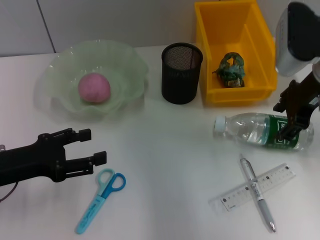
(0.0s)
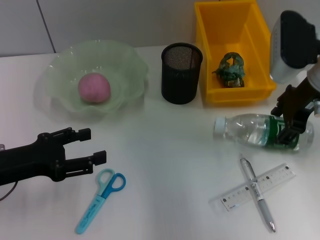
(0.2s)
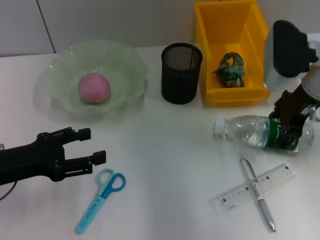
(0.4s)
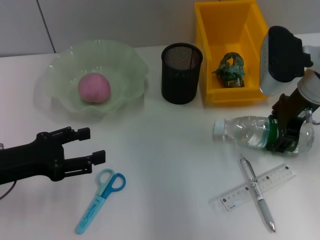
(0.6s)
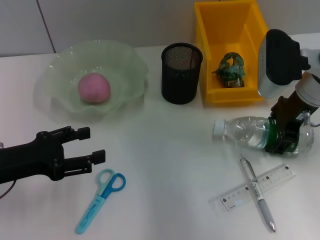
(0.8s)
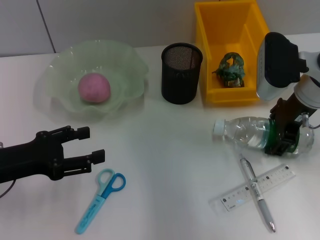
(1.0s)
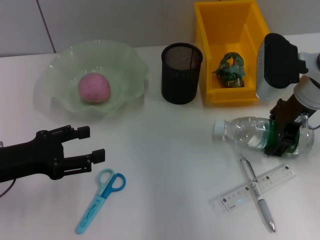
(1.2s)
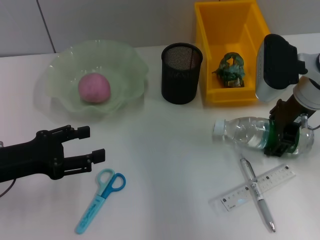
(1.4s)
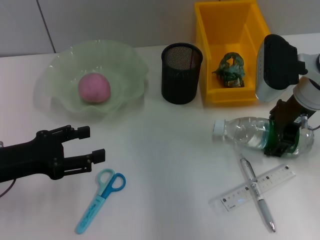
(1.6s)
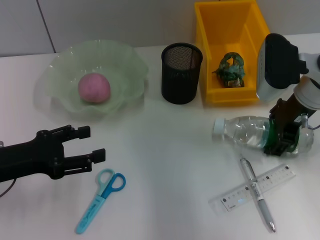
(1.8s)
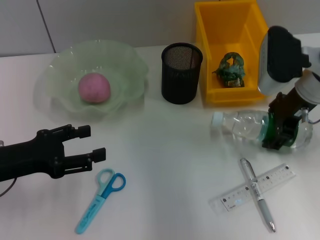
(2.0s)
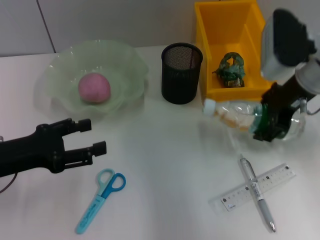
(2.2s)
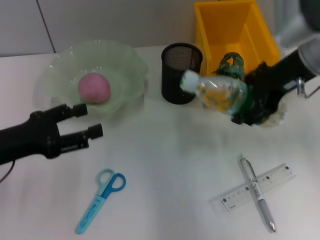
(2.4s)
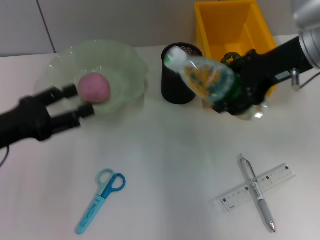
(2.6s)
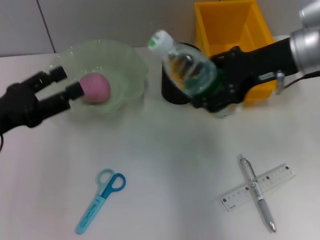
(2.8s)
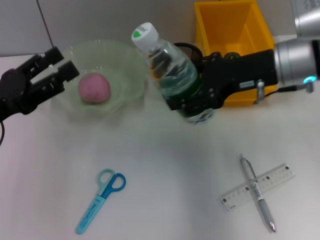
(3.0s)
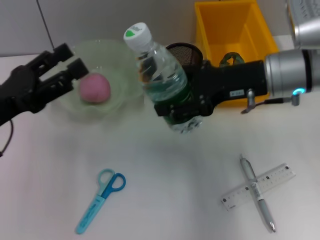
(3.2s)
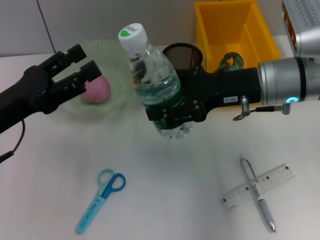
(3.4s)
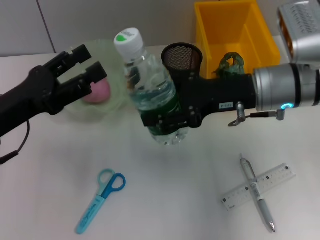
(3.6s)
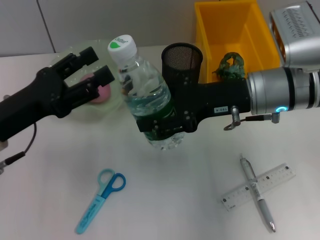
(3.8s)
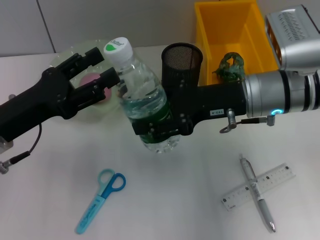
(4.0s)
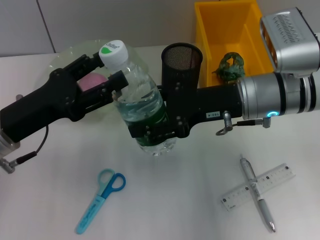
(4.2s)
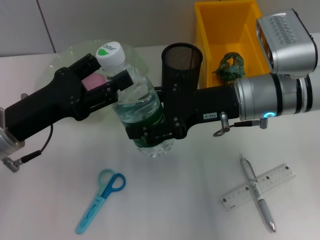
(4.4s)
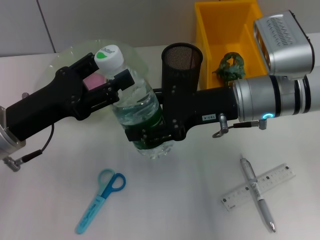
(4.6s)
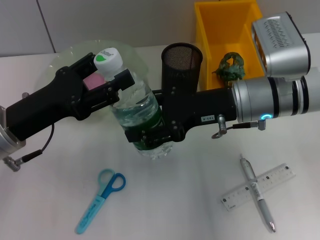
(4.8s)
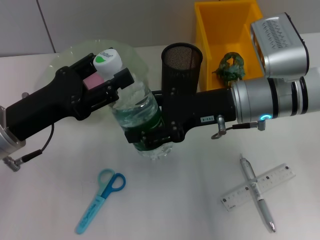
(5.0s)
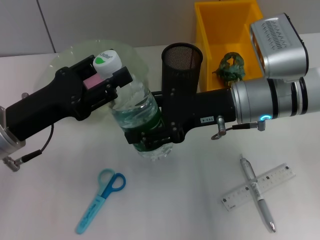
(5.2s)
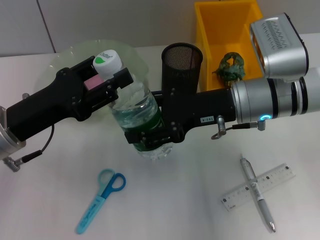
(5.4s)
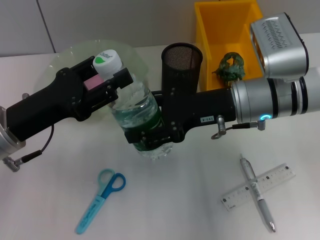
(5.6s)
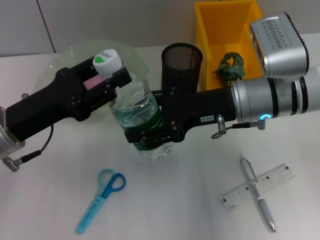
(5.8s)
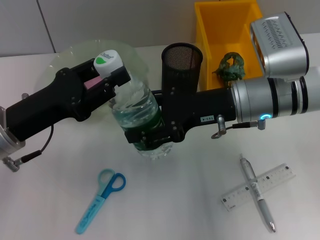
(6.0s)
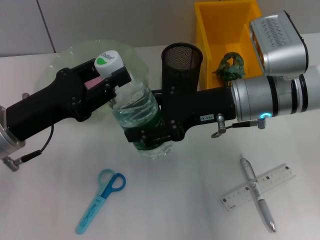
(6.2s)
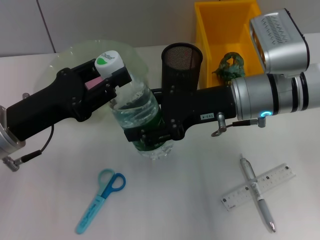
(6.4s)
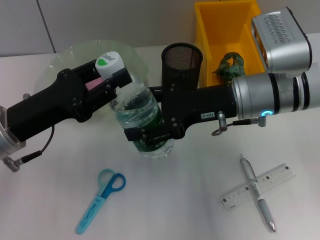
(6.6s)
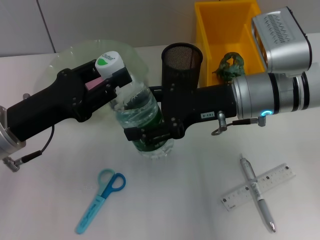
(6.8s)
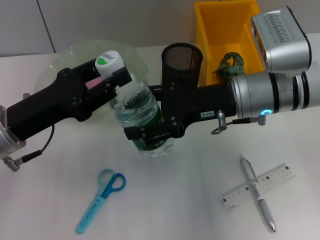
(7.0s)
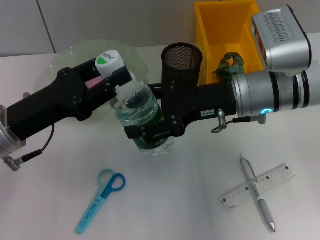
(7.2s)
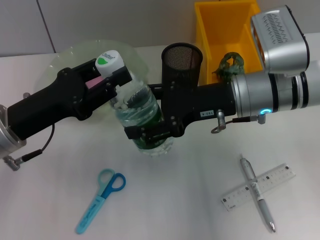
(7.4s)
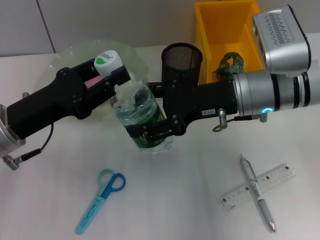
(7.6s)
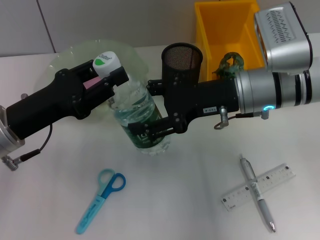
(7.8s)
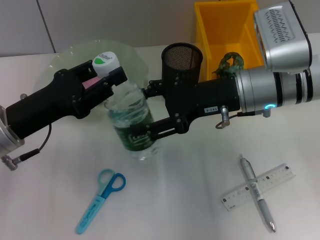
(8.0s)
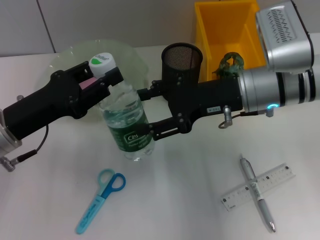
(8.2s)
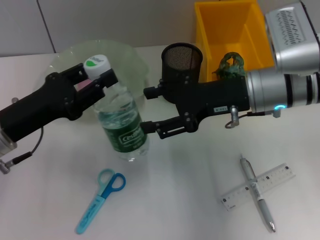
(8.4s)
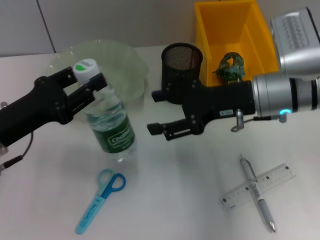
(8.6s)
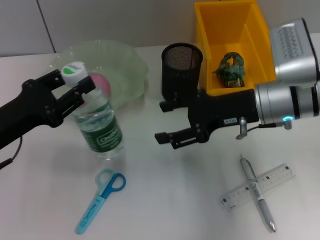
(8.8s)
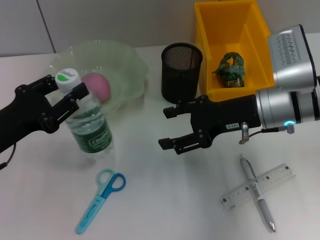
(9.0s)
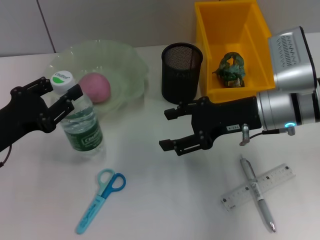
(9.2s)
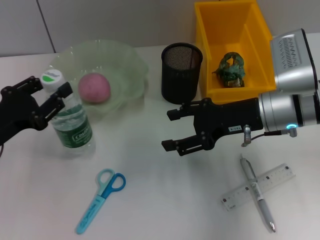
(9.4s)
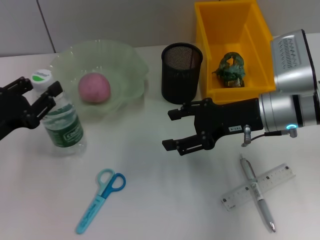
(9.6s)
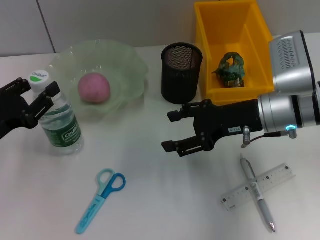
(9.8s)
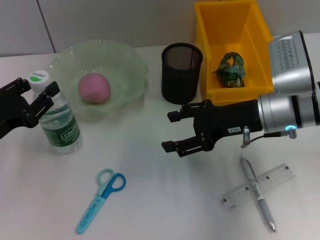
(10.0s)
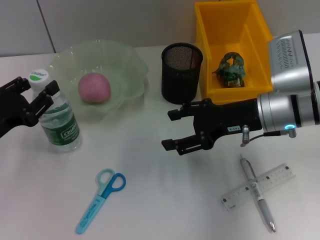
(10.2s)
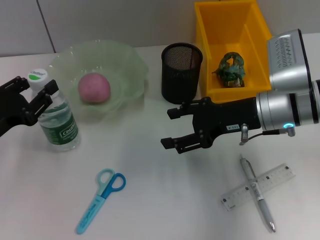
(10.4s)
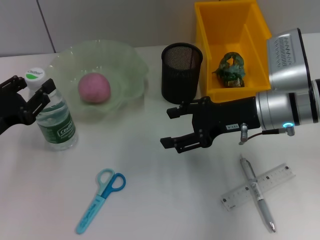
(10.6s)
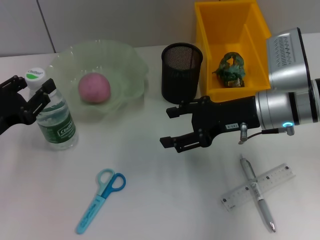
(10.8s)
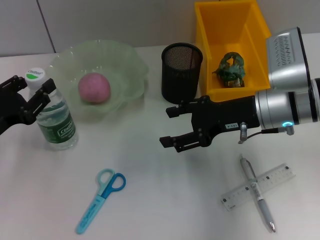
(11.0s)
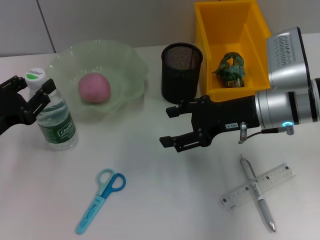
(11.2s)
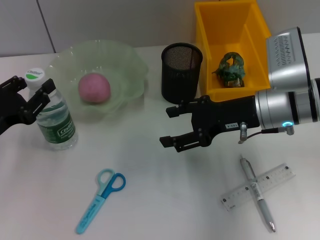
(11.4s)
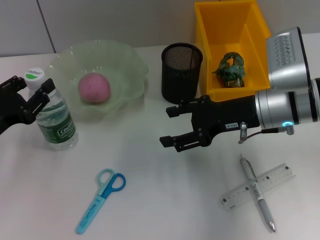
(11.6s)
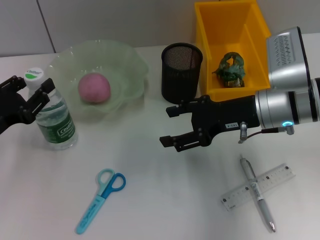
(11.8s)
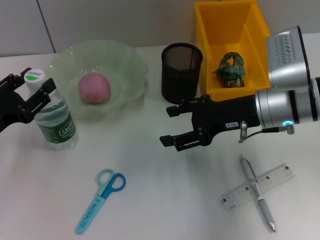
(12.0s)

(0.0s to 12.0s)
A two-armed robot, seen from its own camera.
Step, 0.8s - 7.8s: Pass the water bottle from the right hand to the left hand.
0.0s - 1.6s: The grippers stay close to where they were, moving slightly.
3.0s - 4.4s: The right gripper shifts by about 5 cm. Meanwhile the left gripper is displaced to the right by approximately 5 cm.
4.4s - 6.0s: The left gripper closes.
6.0s - 7.6s: Neither gripper changes place.
7.6s - 9.0s: The left gripper changes place by about 5 cm.
9.0s - 10.4s: The grippers stay close to where they were, moving slightly.
10.4s - 12.0s: Both grippers stay put.

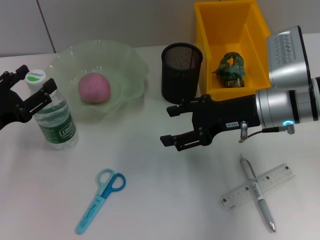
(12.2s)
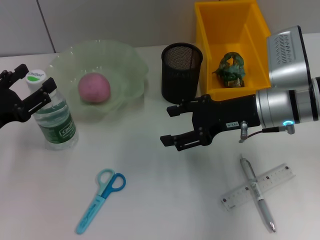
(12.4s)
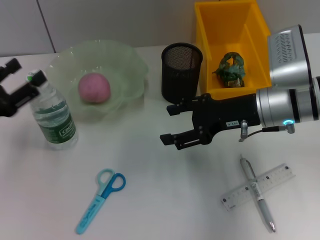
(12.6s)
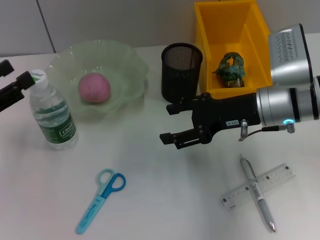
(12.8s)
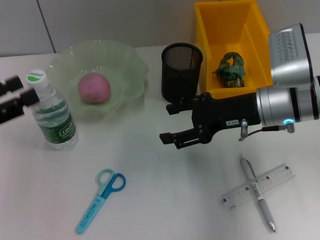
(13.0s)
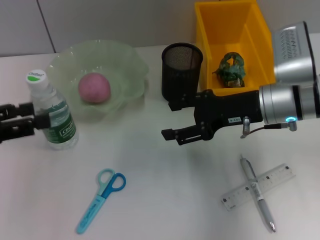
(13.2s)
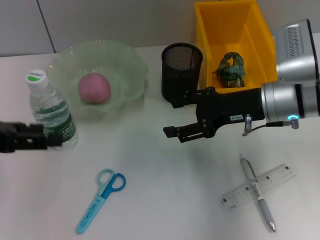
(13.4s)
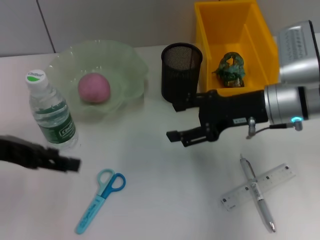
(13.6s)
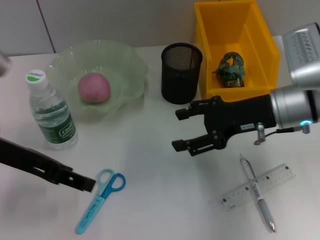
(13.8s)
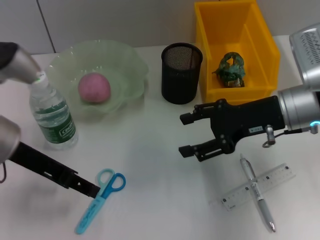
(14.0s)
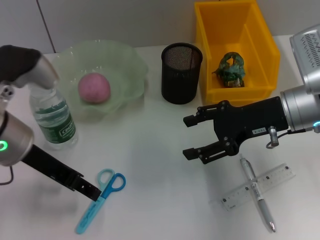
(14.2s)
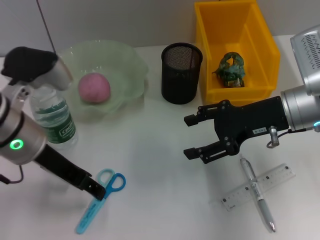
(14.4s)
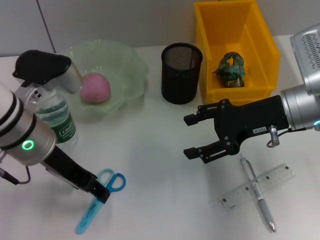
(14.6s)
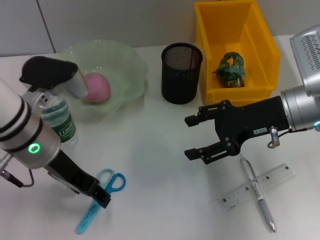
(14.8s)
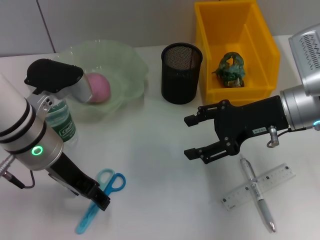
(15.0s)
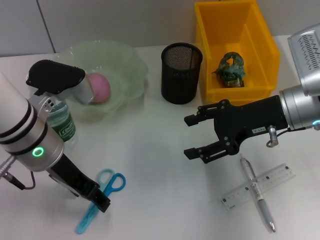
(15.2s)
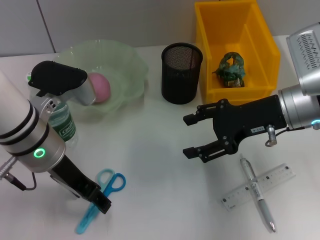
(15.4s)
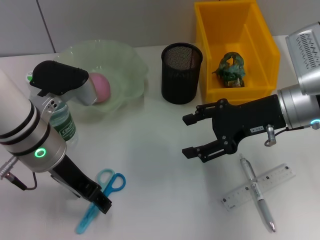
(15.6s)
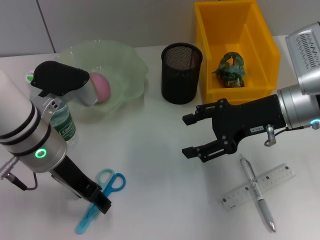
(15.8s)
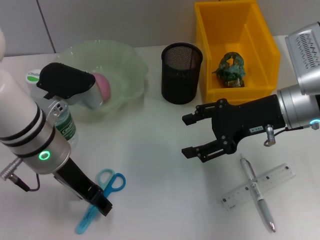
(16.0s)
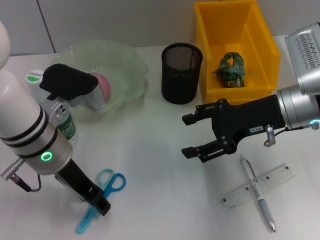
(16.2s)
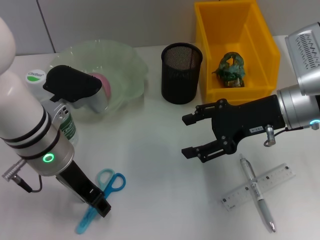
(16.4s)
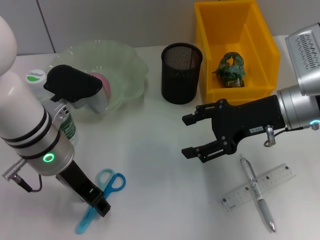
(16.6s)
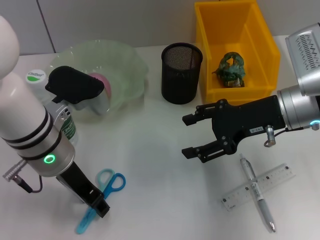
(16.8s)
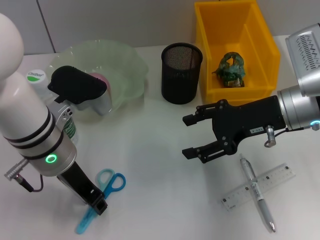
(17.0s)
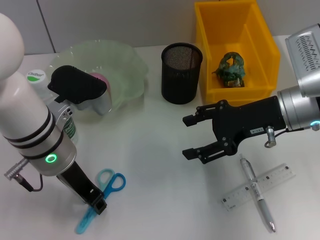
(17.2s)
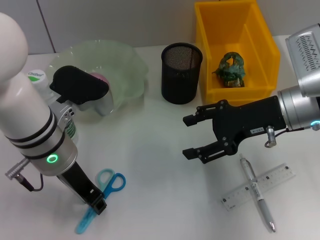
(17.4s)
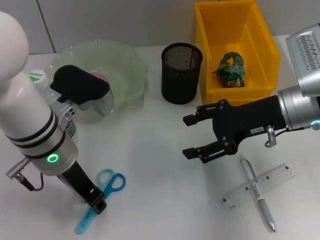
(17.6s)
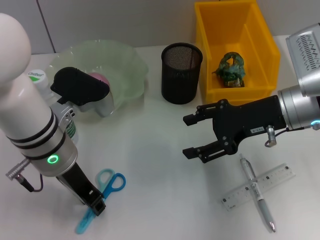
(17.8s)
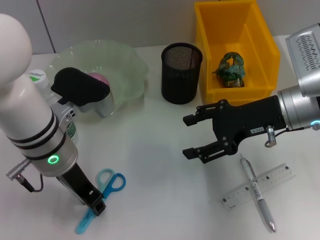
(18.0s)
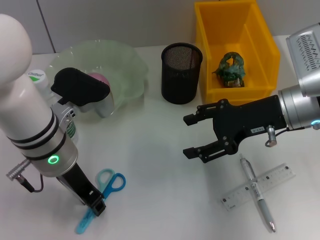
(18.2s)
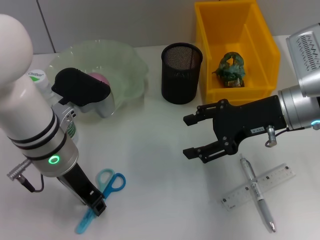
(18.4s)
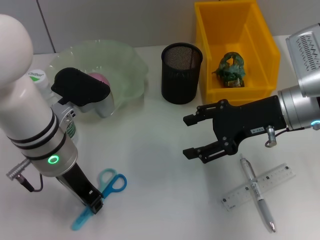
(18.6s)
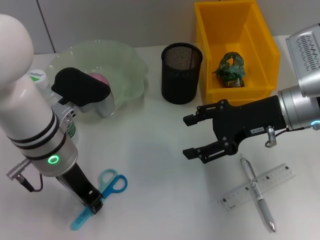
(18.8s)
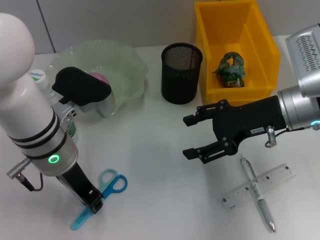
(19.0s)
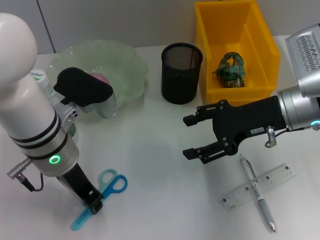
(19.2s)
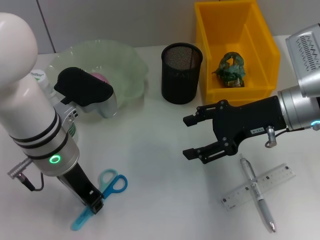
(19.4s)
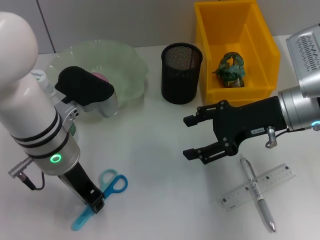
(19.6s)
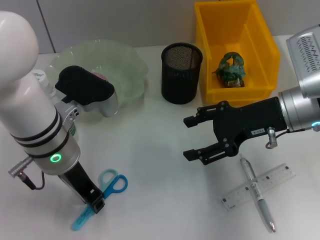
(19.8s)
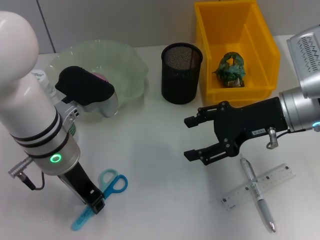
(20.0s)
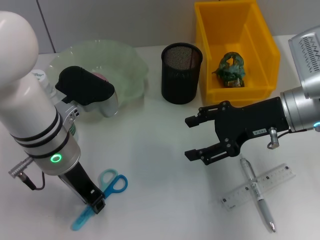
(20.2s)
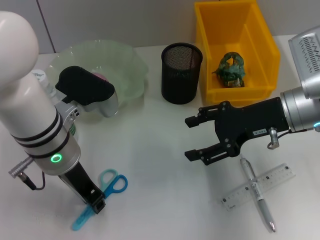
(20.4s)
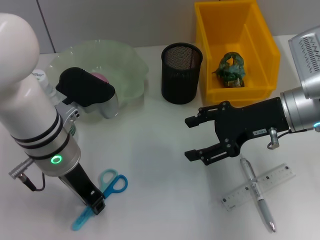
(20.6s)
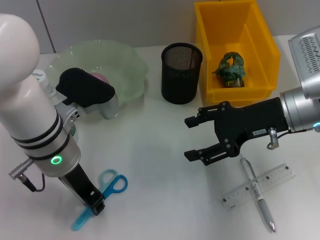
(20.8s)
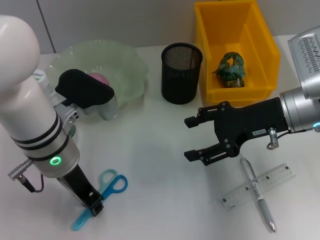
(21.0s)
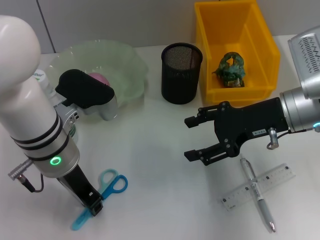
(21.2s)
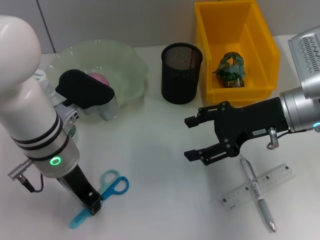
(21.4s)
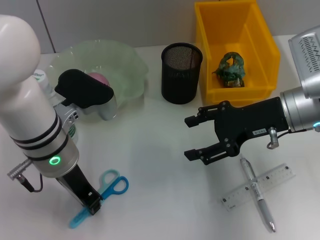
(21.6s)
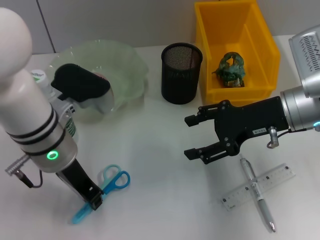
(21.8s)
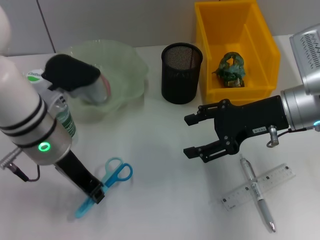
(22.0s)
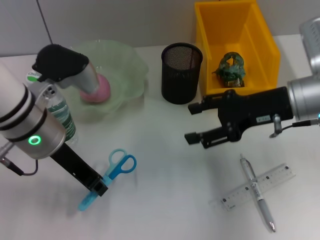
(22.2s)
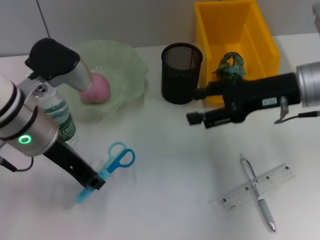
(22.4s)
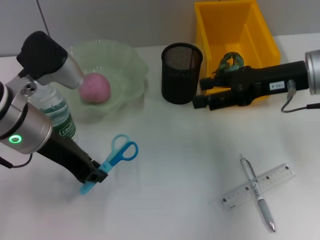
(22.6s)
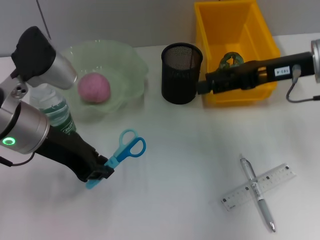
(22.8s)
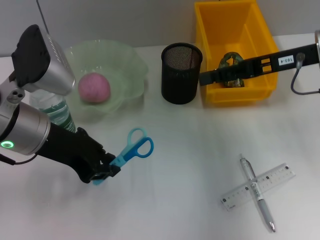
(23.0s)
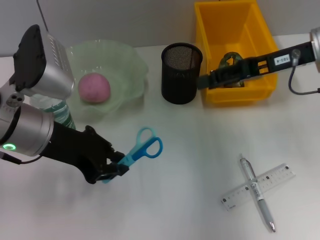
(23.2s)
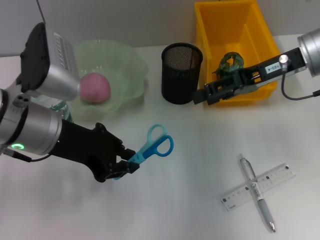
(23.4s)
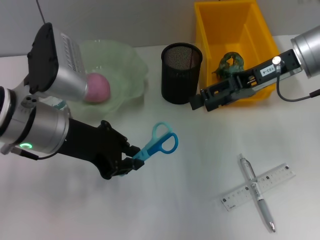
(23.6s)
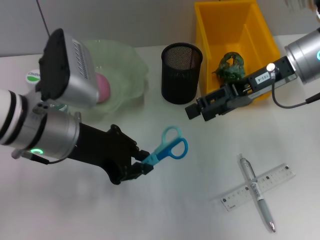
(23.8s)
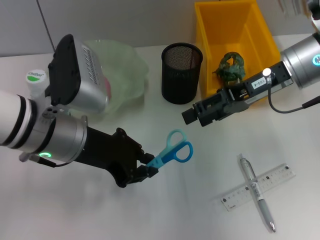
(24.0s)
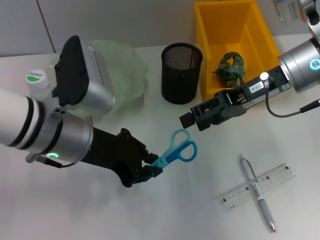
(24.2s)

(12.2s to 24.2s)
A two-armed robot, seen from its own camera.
Step, 12.6s - 21.4s: Grab the blue scissors with the left hand.
12.2s - 13.8s: The left gripper moves upward and to the right, approximately 15 cm.
13.8s - 15.2s: The left gripper is displaced to the right by some 5 cm.
15.2s - 16.6s: There are only small adjustments of the grippers.
16.6s - 18.2s: Neither gripper changes place.
18.2s - 21.2s: The two grippers keep their place.
21.2s - 22.6s: The left gripper ends up some 5 cm from where it was; the right gripper changes place by roughly 5 cm.
